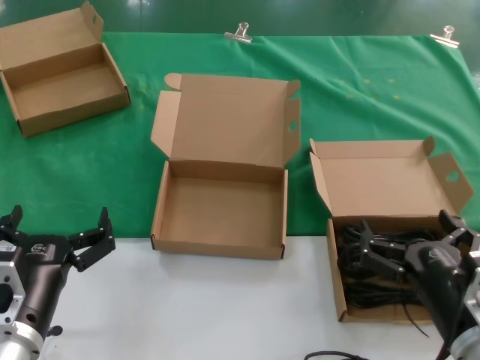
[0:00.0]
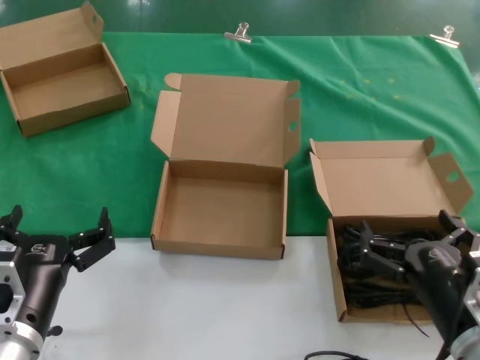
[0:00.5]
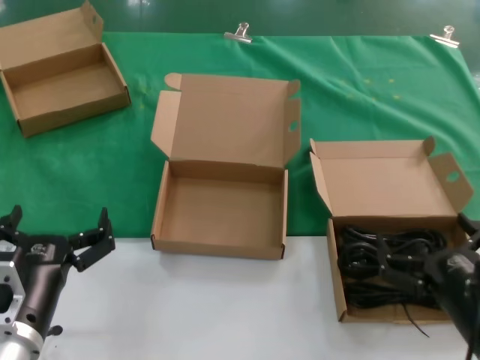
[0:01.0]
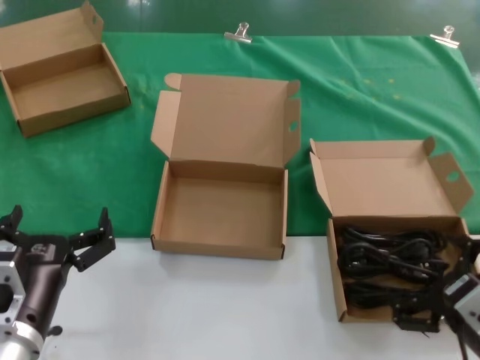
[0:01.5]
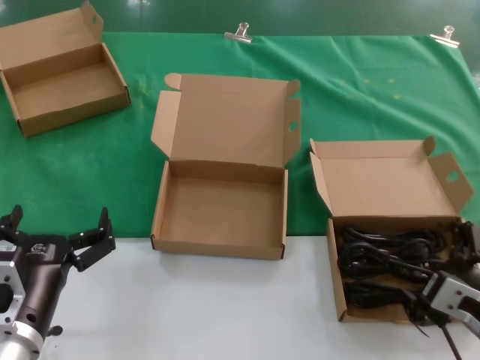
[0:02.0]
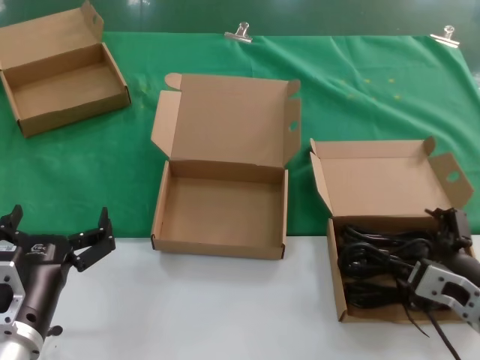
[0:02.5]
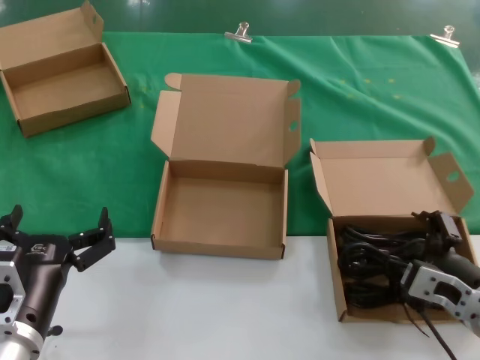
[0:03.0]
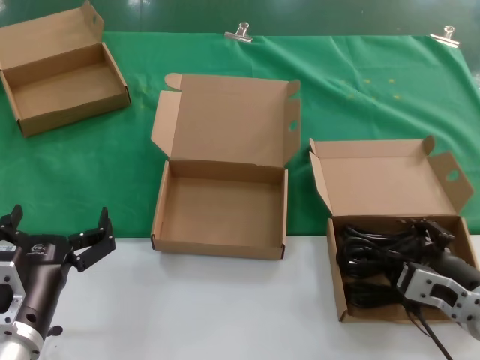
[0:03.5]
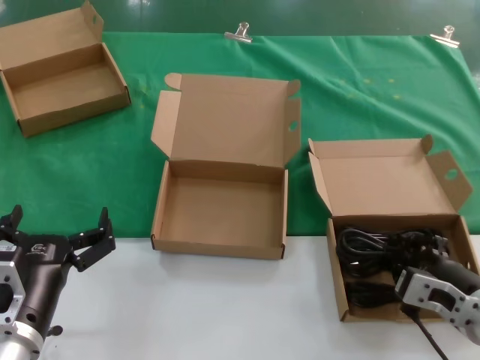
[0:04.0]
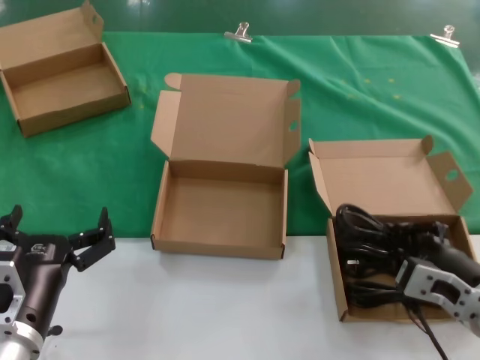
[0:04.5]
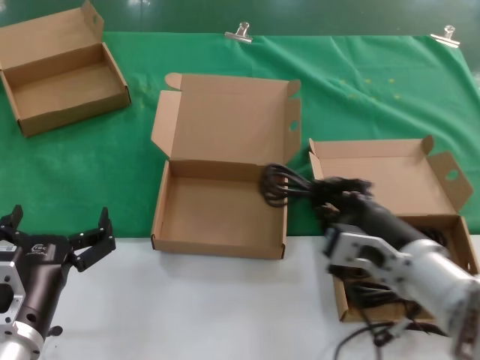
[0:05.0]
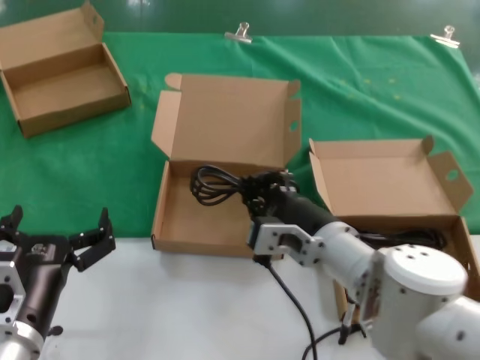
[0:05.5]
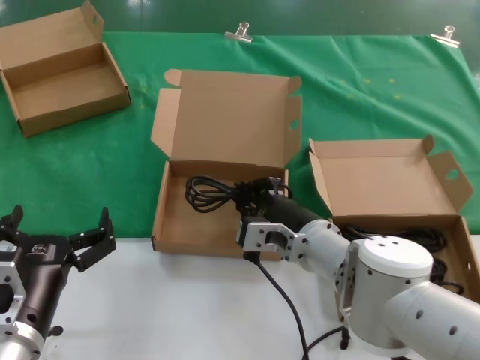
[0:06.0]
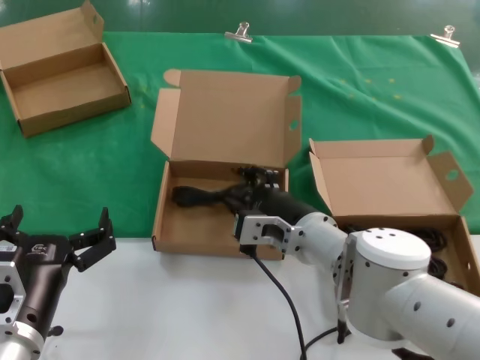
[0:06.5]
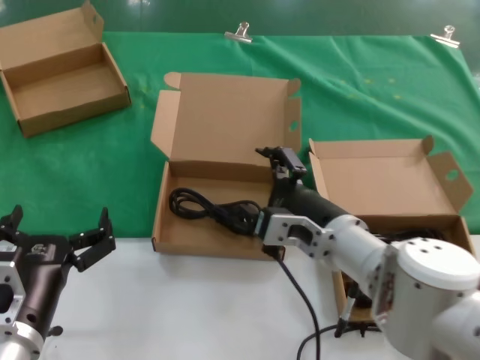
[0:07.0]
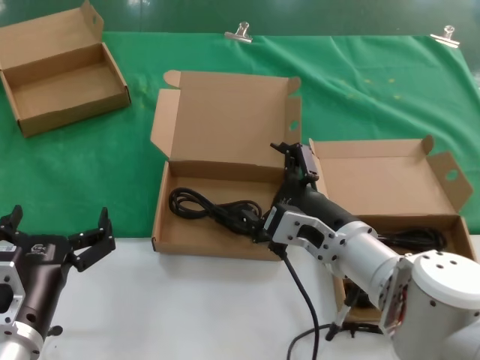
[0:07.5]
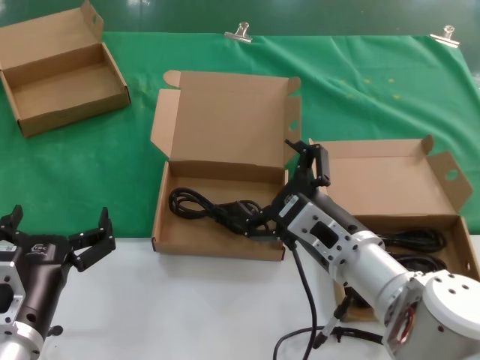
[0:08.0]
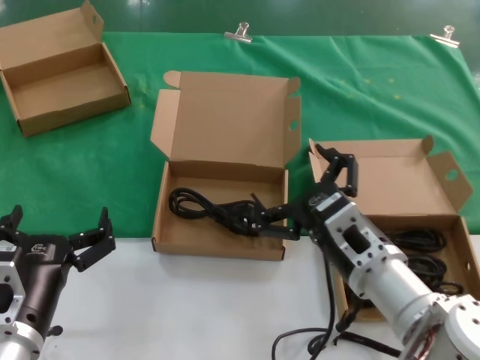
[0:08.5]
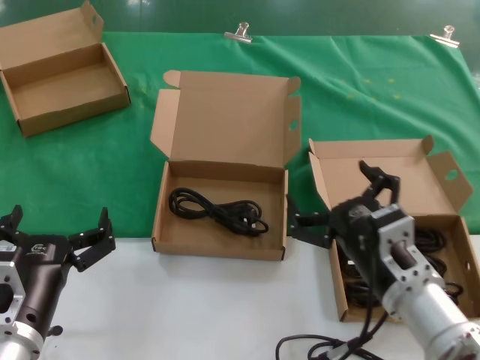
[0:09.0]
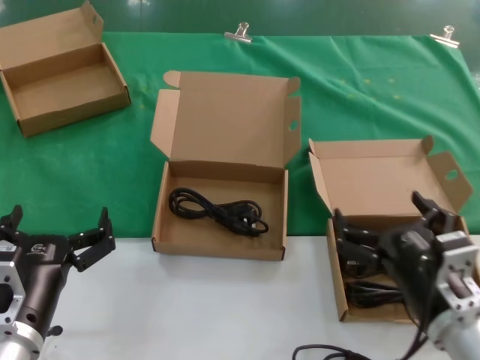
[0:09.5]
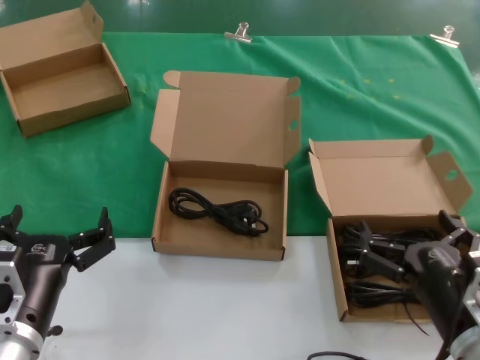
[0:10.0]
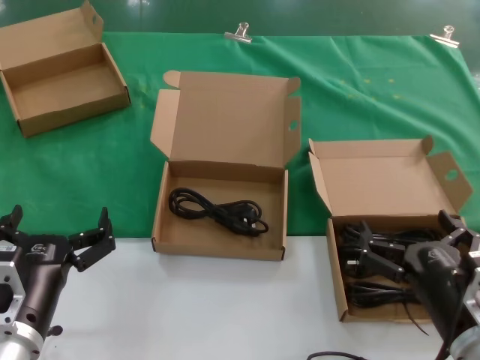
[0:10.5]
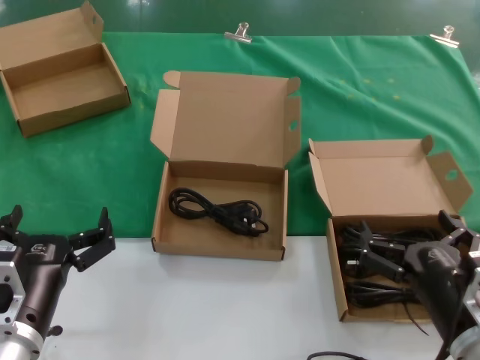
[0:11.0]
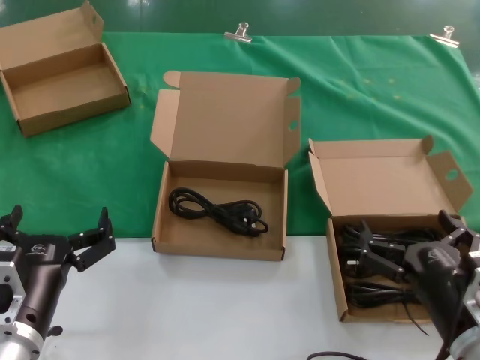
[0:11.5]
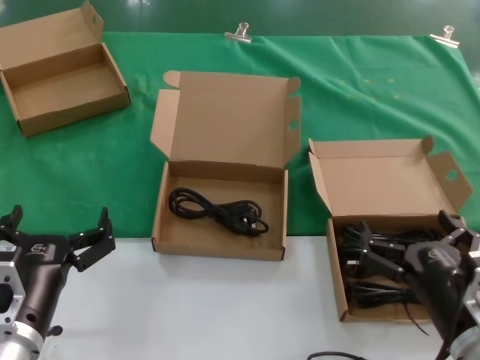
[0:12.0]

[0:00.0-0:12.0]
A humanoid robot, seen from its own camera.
Task of the whole recording: take the parts from the box containing them and put them into an empty box.
Step, 0:00.0 to 0:03.5: Grasp the data cable.
Step, 0:04.0 to 0:06.5: Place the data cable in the another box.
0:00.0 to 0:02.0: The right hand changes place by roughly 5 cm.
0:02.0 to 0:04.0: The hands move only a little.
0:04.0 to 0:06.0: The right hand is displaced to the left and forward by roughly 20 cm.
0:06.0 to 0:08.0: The right hand heads backward, covering some 5 cm.
0:08.0 to 0:10.0: The right hand moves to the right, backward and downward, approximately 15 cm.
0:10.0 to 0:12.0: The two hands keep their place.

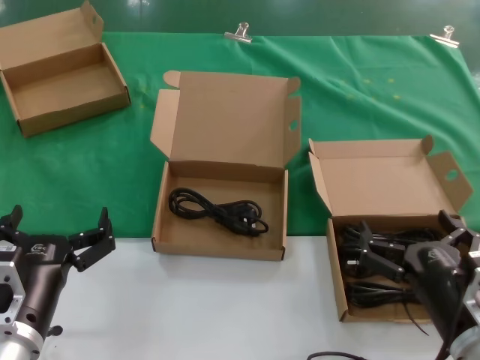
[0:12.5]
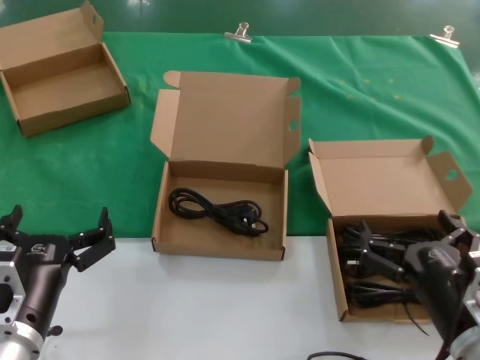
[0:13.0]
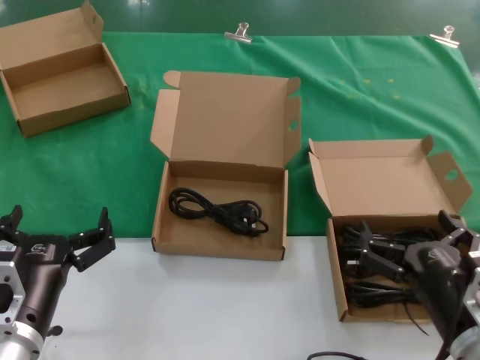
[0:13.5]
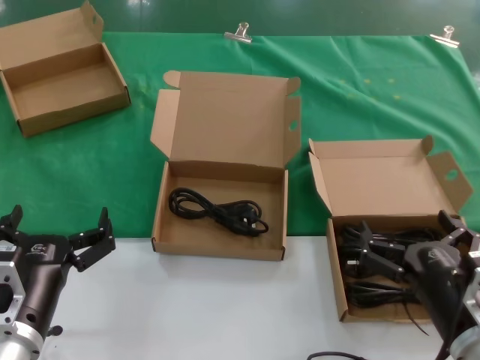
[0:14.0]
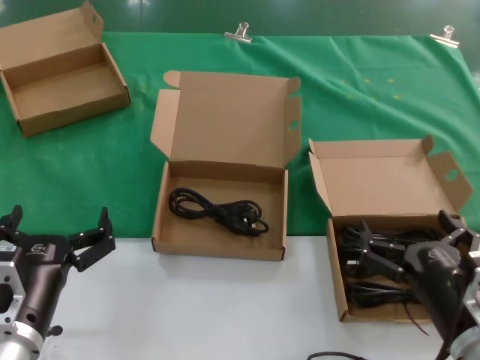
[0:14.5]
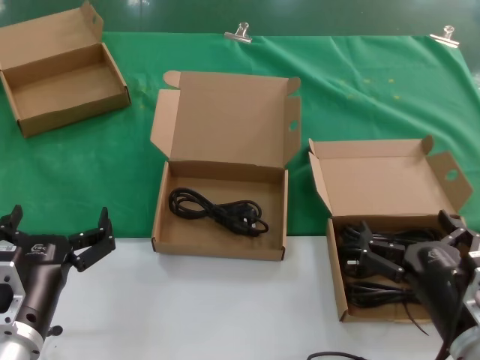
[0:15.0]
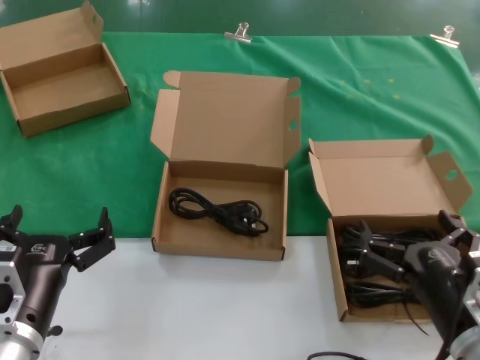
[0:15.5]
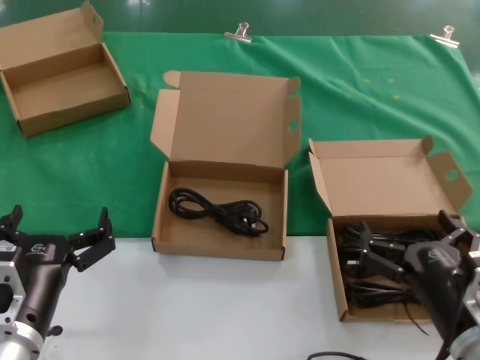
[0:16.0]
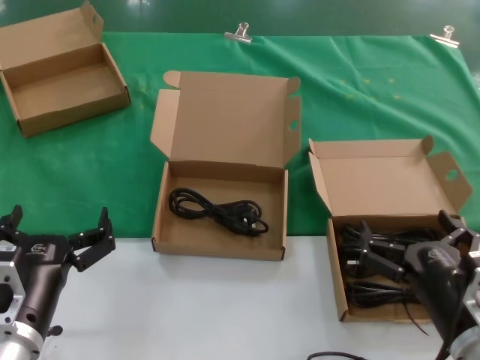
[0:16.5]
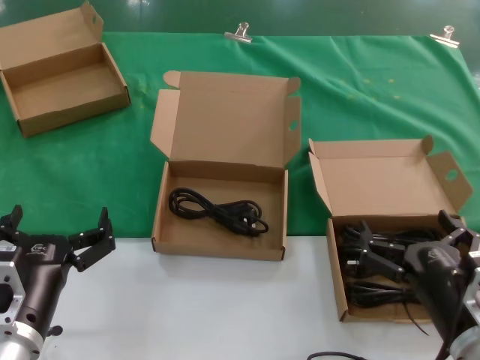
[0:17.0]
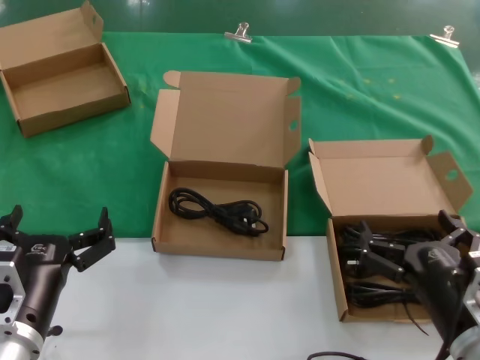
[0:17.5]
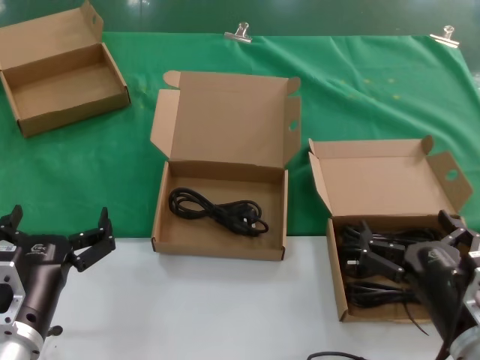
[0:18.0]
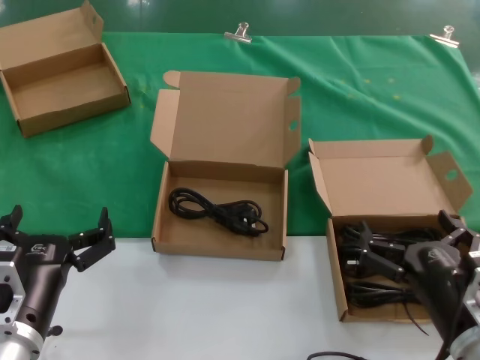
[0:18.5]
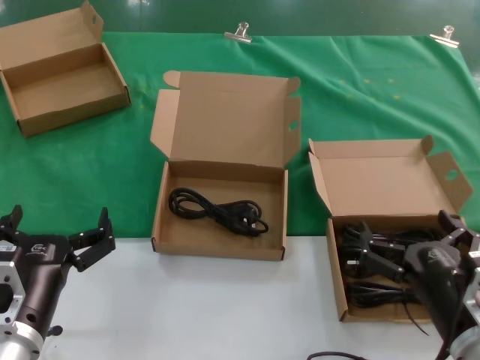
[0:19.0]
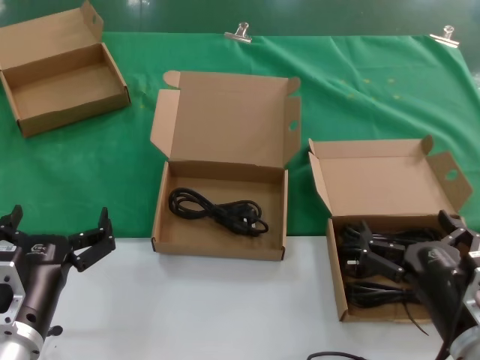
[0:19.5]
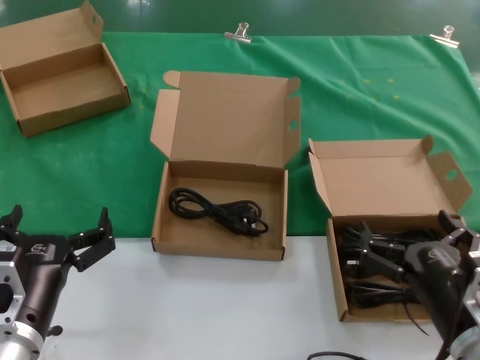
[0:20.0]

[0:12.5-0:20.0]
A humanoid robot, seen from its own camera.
Task of the whole recording: take the parts from the box containing them and put them into an empty box.
0:12.5 to 0:20.0: Both hands stay about where they are.
